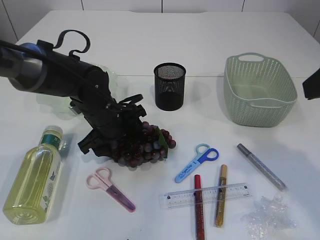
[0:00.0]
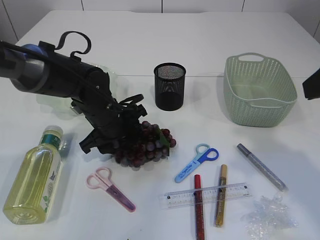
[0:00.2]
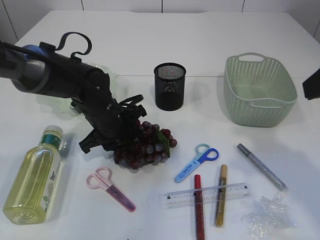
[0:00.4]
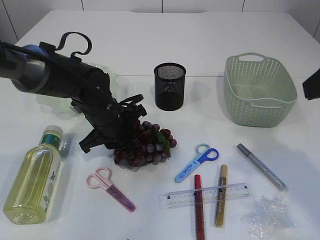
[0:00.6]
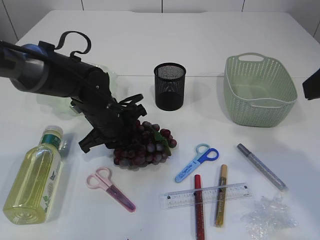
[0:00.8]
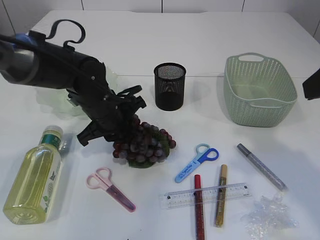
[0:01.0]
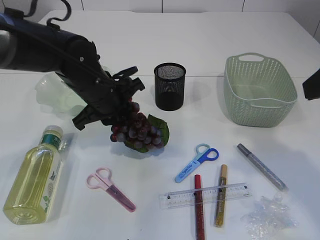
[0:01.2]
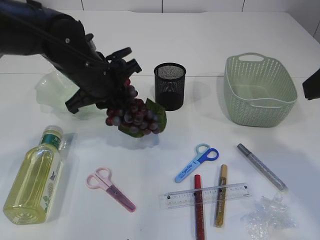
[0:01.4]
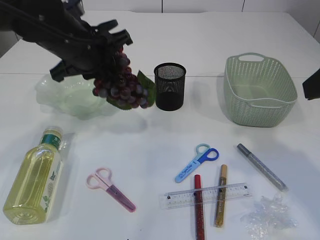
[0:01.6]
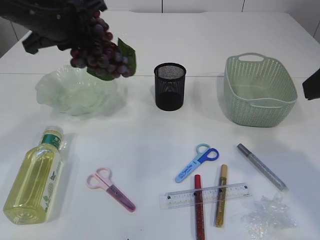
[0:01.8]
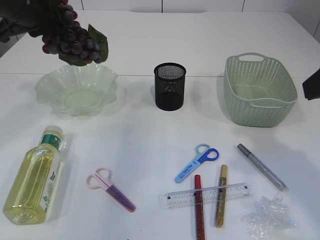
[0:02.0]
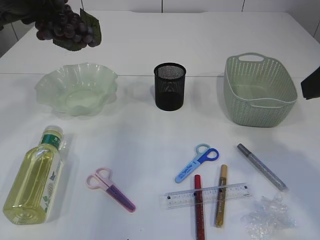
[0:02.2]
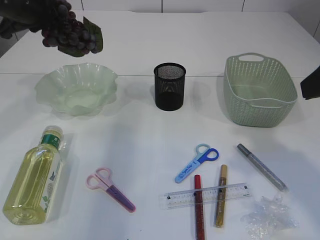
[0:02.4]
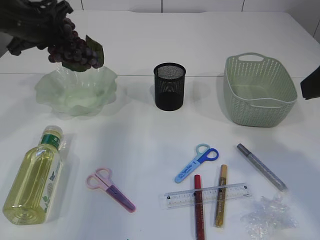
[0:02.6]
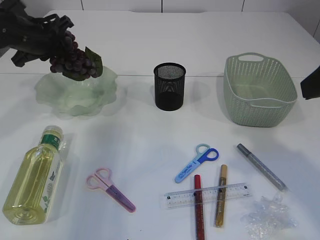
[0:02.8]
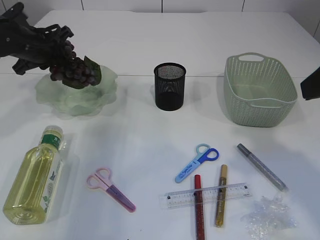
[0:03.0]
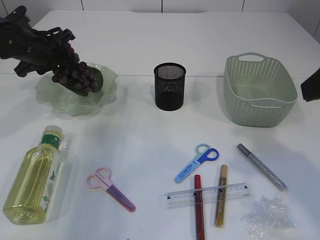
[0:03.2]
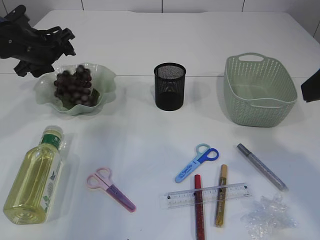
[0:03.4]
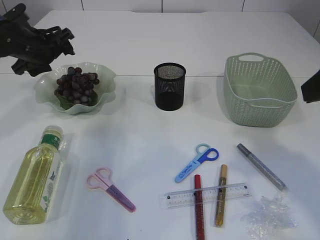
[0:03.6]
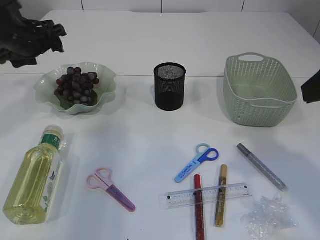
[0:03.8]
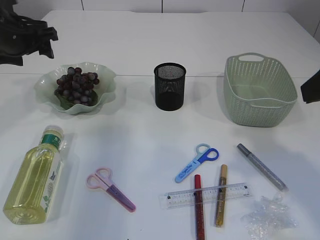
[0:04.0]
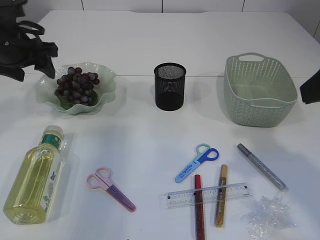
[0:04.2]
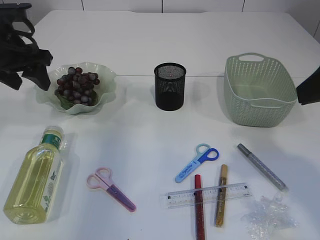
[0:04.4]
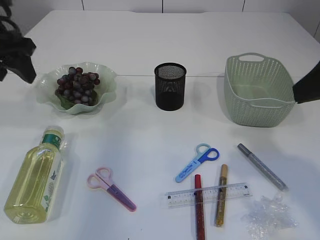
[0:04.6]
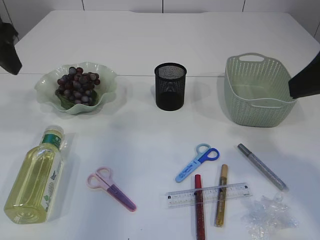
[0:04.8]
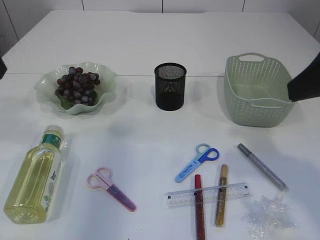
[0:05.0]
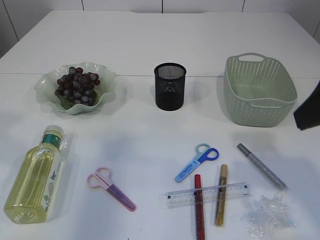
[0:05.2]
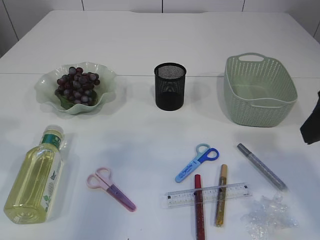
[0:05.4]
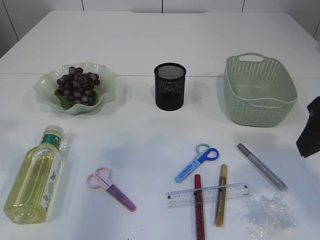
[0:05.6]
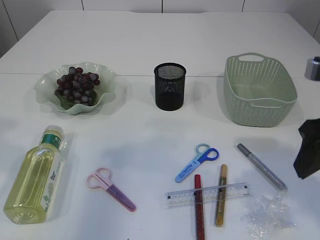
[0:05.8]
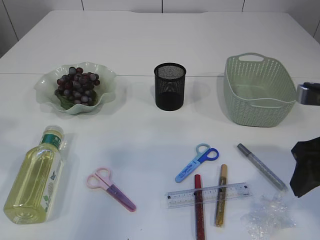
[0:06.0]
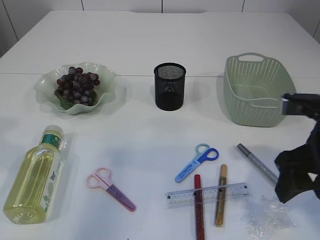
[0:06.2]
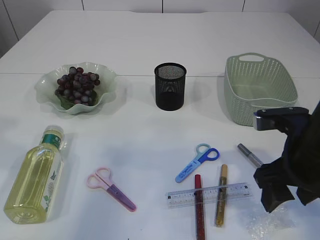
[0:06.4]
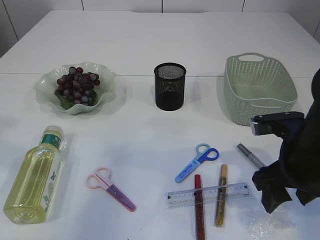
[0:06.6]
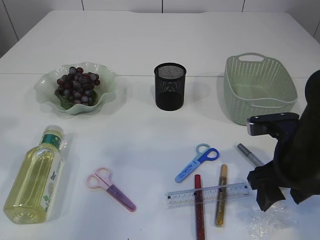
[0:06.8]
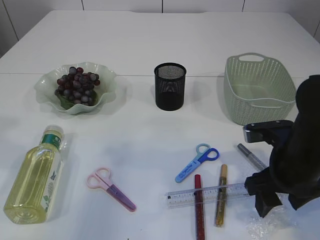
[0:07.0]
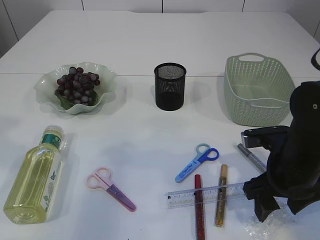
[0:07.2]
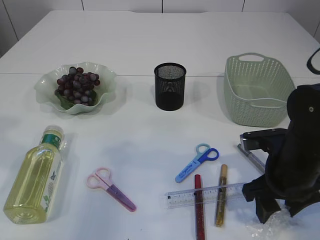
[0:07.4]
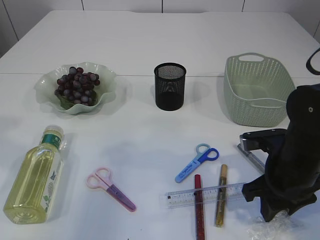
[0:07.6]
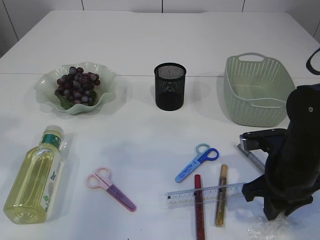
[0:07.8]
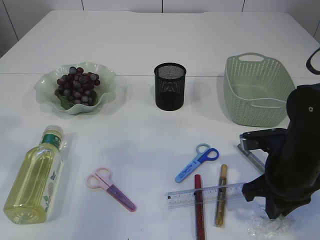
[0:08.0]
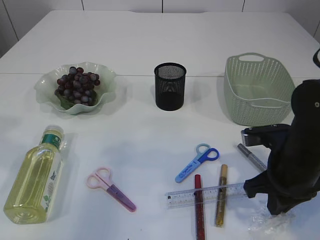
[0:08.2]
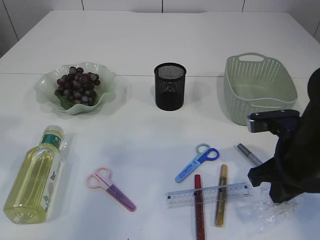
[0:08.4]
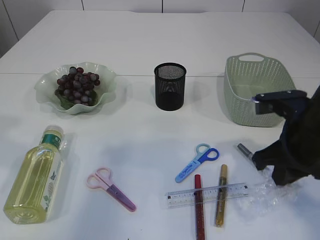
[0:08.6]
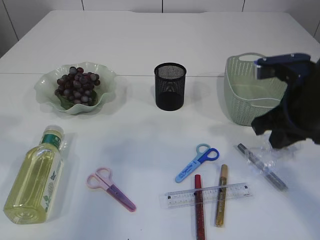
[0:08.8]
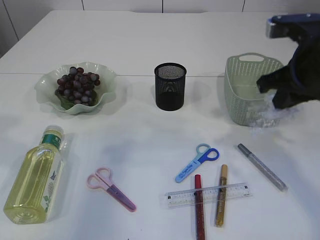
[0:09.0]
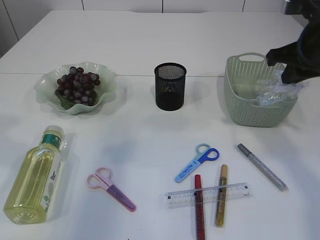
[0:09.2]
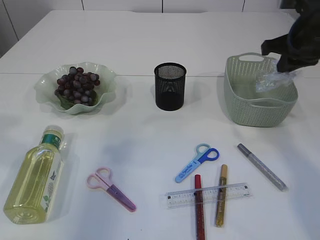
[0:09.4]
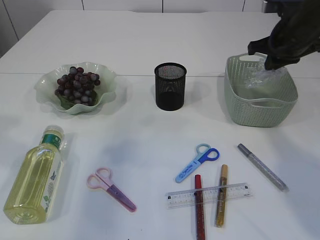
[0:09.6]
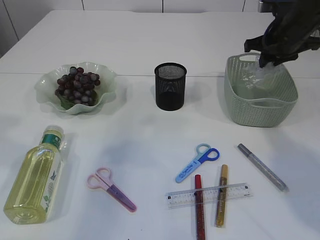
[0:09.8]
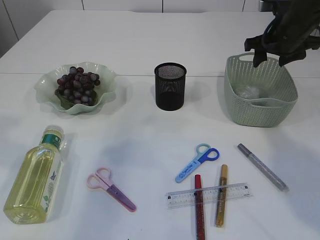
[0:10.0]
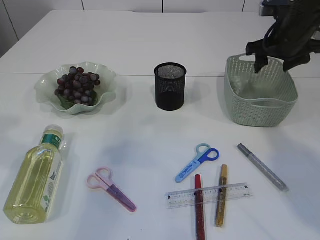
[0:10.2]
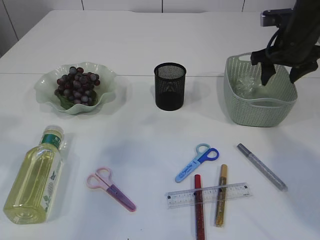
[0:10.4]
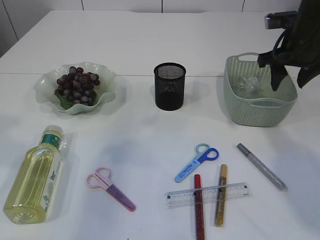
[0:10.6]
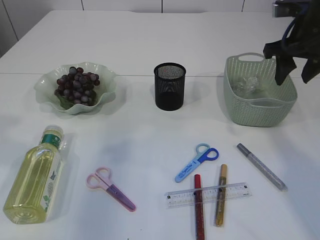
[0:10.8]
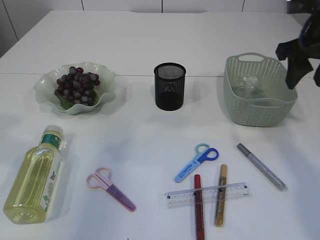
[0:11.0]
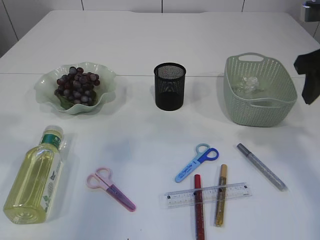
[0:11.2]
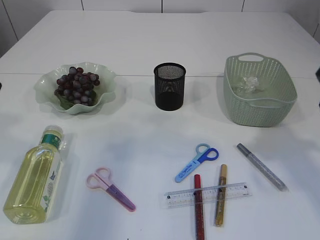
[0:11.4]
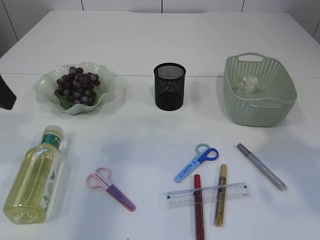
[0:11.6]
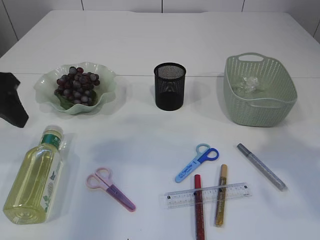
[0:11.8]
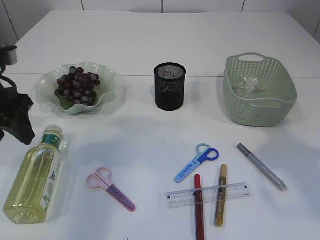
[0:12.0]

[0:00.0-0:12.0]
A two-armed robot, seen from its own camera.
Step, 0:01.6 to 0:03.8: Place the grapes in the plate.
Step, 0:04.0 to 0:08.4: Pick up the plastic.
Step, 0:08.6 to 0:10.6: Place the plastic in the basket.
0:00.0 to 0:01.6: The left gripper travels upward by some 15 cm, and closes up.
0:01.6 to 0:03.0: The left gripper moves to the left and forward, approximately 15 cm.
0:03.0 to 0:04.4: The left gripper moves backward and upward, about 10 cm, and opens.
0:04.4 to 0:06.0: The left gripper travels backward and upward by approximately 15 cm, while the right gripper travels downward by roughly 10 cm.
0:06.0 to 0:07.6: The right gripper heads downward, covering roughly 10 cm, and closes its fingers.
0:07.6 to 0:09.0: The right gripper shifts about 15 cm upward, and closes.
0:09.0 to 0:10.4: The right gripper travels forward by some 15 cm, and opens its fingers.
0:10.4 to 0:12.0: The right gripper shifts roughly 25 cm backward and upward; the left gripper goes approximately 10 cm downward and forward.

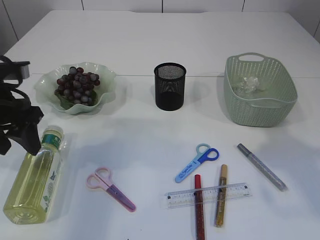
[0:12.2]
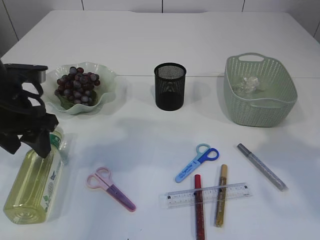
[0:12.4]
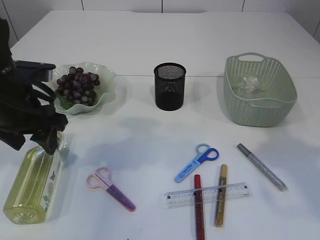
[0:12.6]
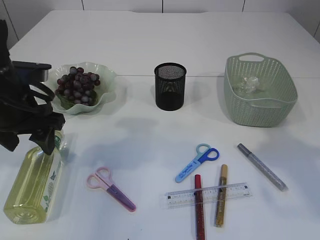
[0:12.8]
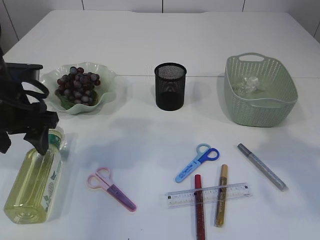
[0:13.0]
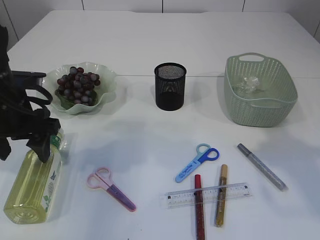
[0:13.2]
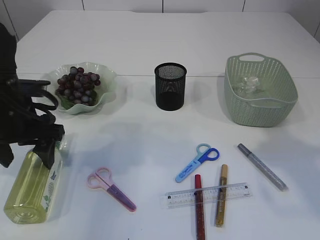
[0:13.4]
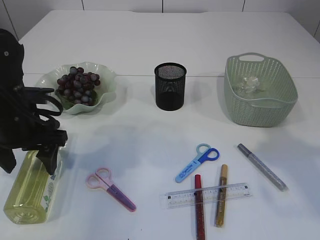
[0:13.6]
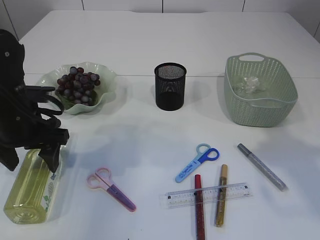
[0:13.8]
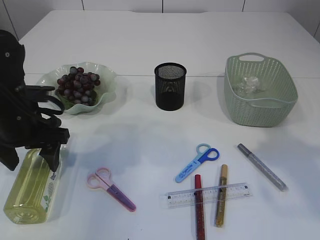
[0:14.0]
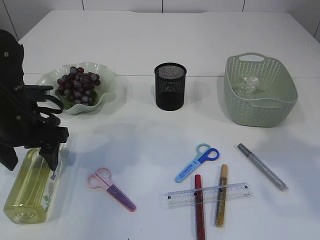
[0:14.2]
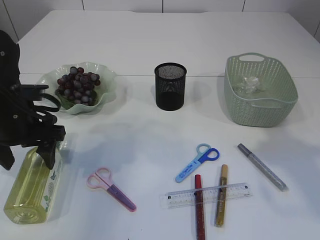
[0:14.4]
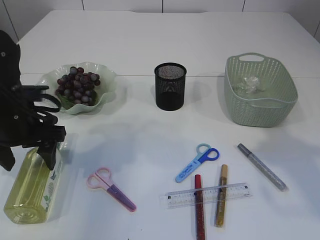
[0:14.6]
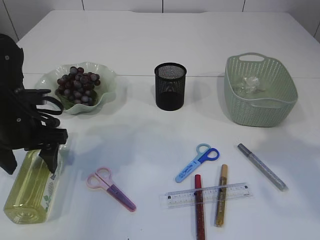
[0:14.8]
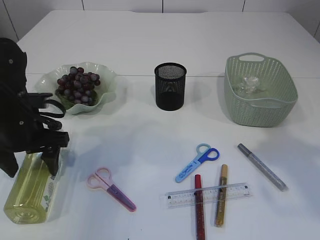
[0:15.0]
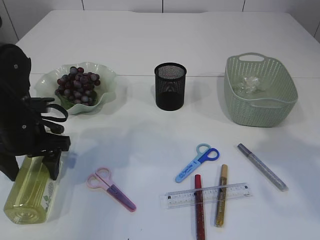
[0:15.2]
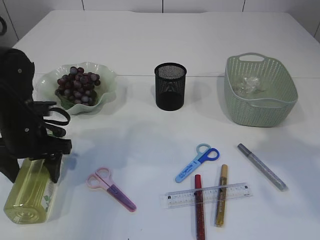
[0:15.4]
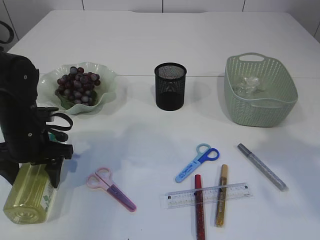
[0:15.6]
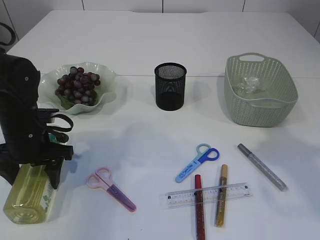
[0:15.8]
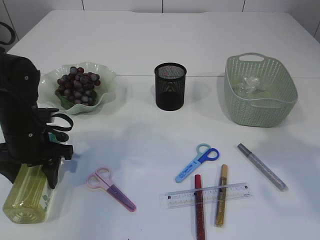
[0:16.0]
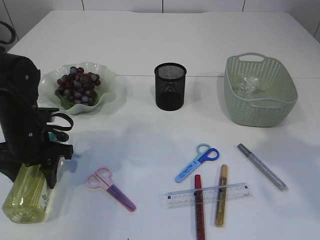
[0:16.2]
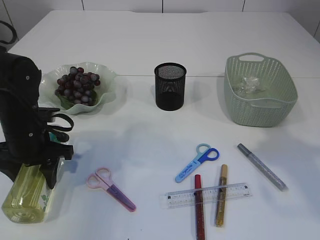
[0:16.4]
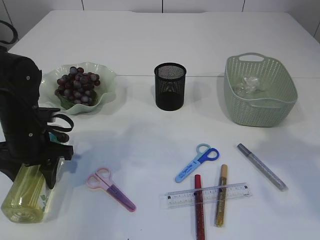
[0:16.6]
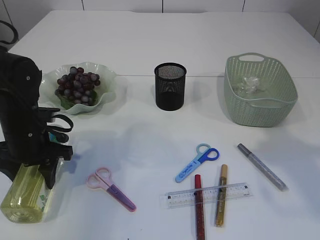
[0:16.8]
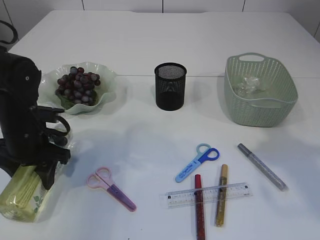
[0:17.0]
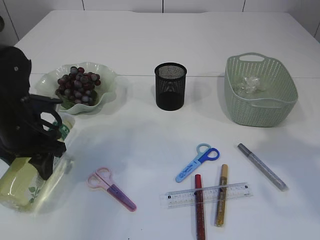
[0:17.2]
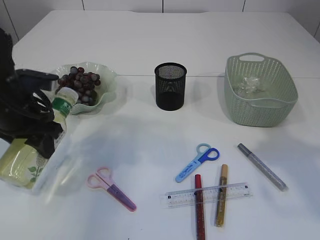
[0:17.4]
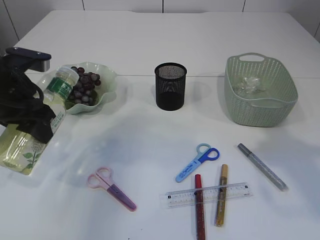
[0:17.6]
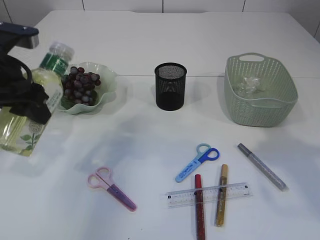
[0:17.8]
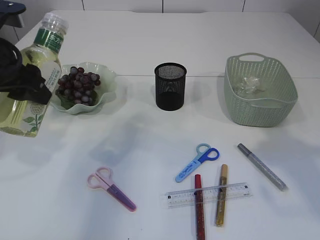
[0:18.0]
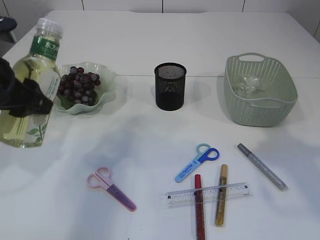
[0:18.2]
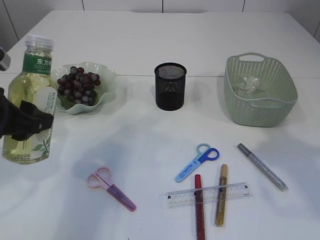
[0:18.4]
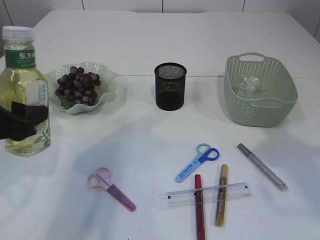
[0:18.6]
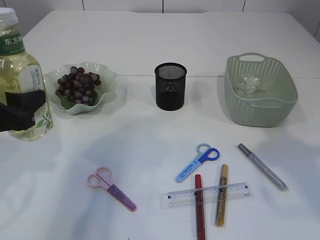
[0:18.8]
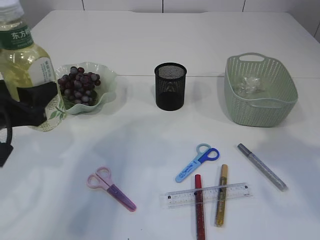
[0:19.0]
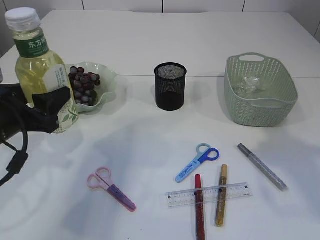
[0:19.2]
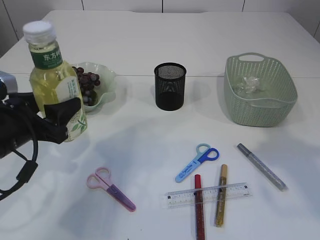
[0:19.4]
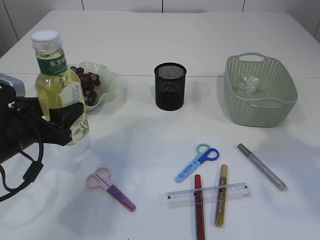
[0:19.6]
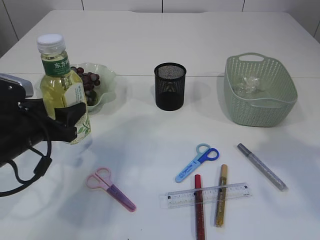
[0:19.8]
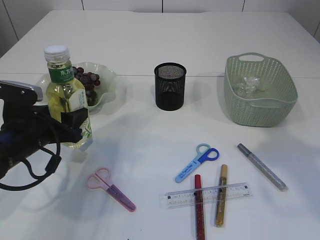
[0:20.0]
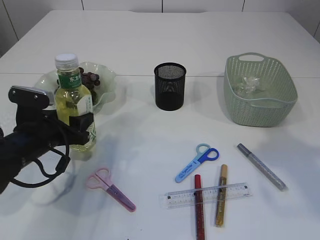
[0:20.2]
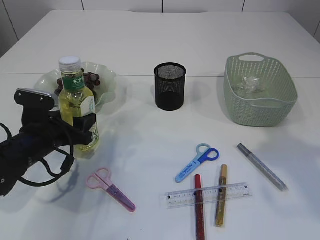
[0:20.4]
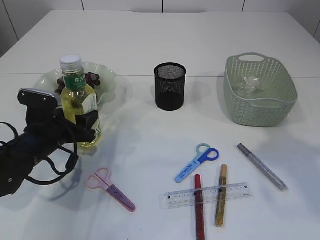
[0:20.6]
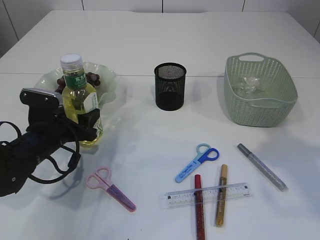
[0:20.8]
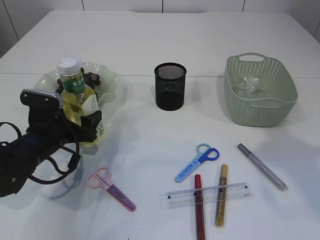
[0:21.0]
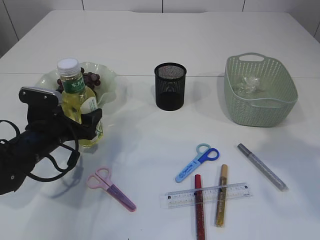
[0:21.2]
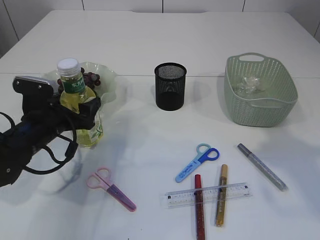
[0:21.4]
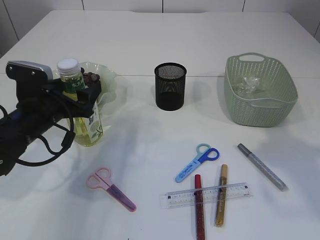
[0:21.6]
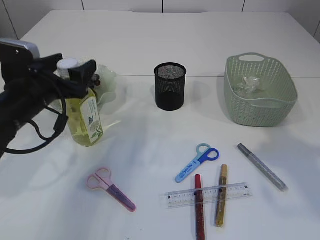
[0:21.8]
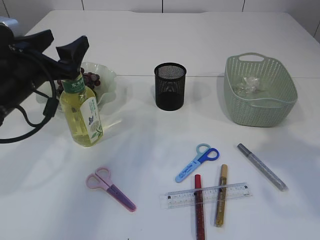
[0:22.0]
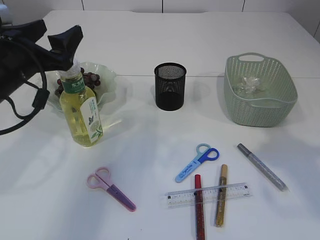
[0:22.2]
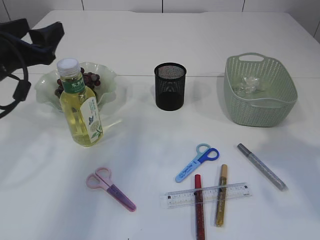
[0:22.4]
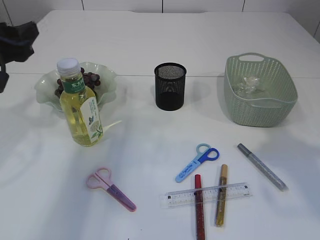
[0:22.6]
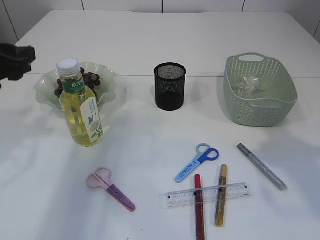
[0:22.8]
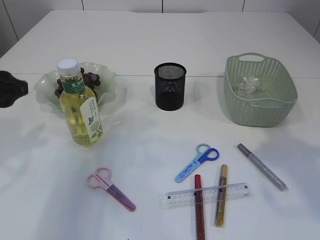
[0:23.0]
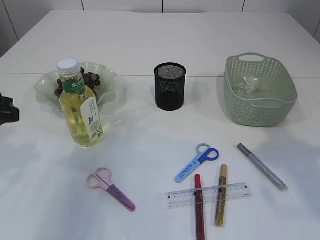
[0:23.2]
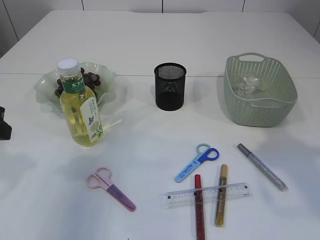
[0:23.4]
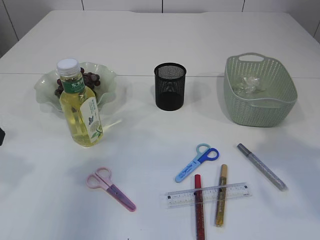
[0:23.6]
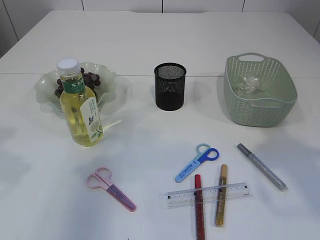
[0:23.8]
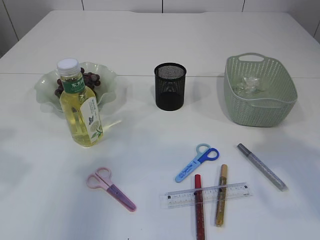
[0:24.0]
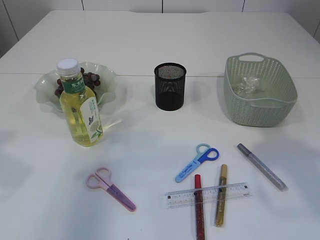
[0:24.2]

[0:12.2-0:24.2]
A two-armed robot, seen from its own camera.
Step, 0:12.2 to 0:17.6: Pick up the bottle with the left arm.
Step, 0:17.8 to 0:21.8: Place the bottle.
0:12.2 to 0:13.8: The left gripper shifts by roughly 5 cm.
0:13.8 to 0:16.6: The grippers make only small movements.
0:16.6 to 0:18.2: The left gripper moves upward, about 15 cm.
0:18.2 to 0:19.8: The left gripper is displaced downward by roughly 10 cm.
0:19.8 to 0:21.2: The left gripper is displaced downward and forward by roughly 10 cm, and opens its fingers.
0:21.2 to 0:22.6: The left gripper moves upward, some 15 cm.
0:22.6 to 0:24.2: The left gripper shifts roughly 10 cm backward.
